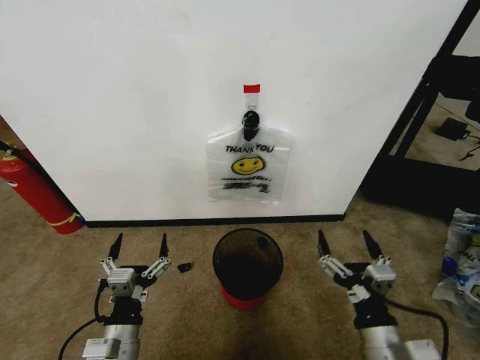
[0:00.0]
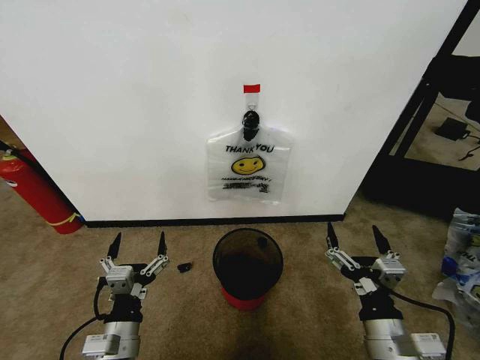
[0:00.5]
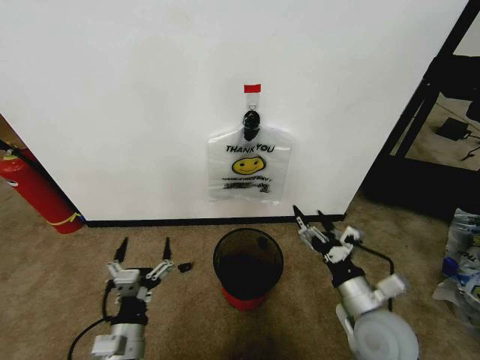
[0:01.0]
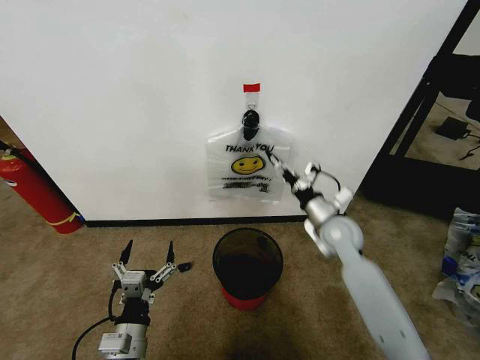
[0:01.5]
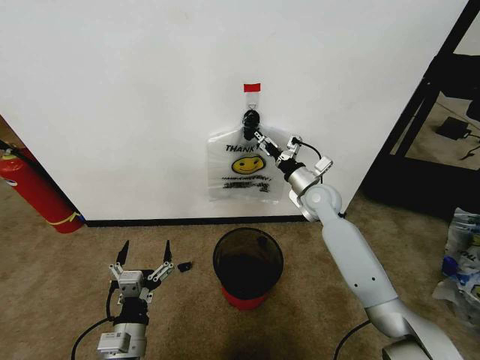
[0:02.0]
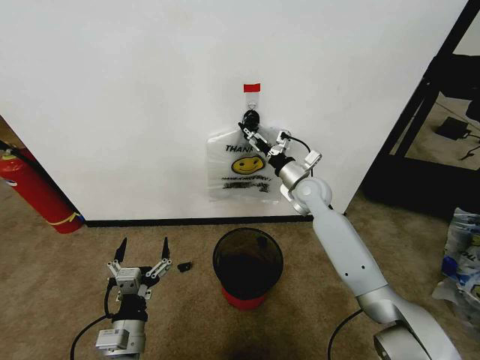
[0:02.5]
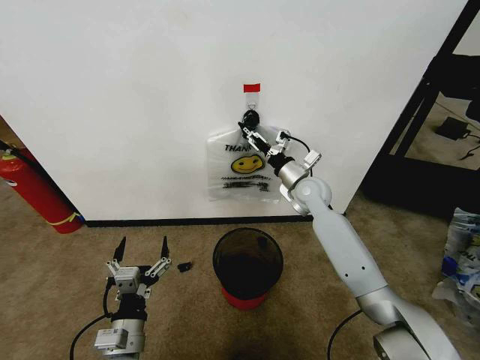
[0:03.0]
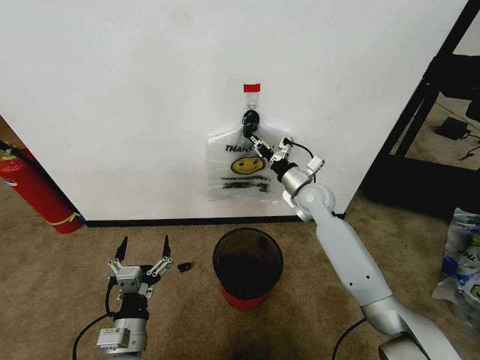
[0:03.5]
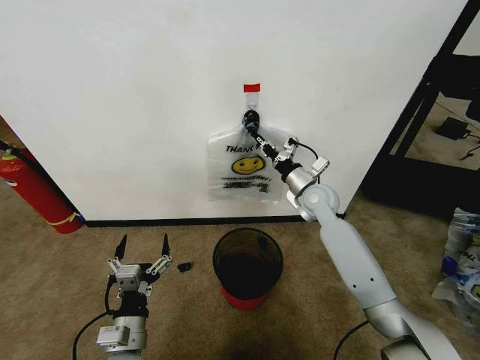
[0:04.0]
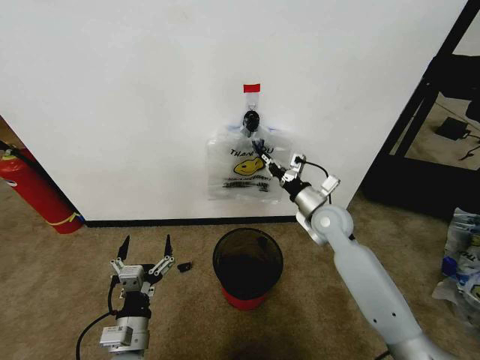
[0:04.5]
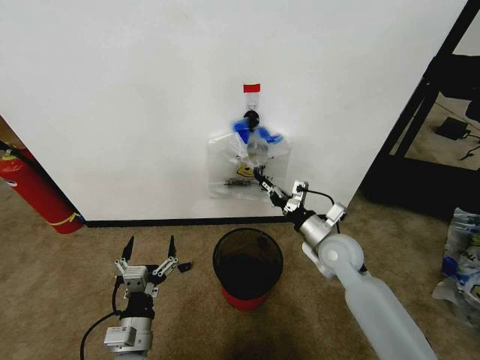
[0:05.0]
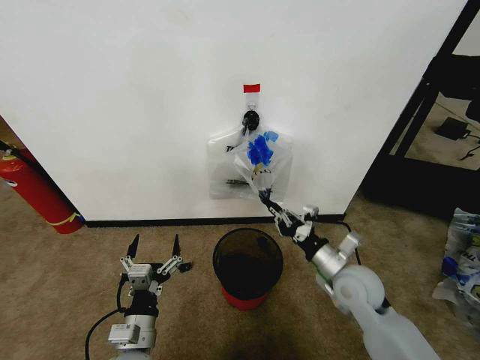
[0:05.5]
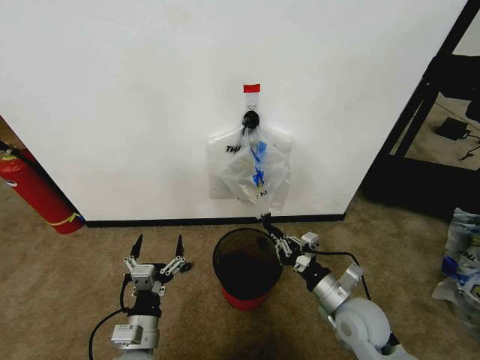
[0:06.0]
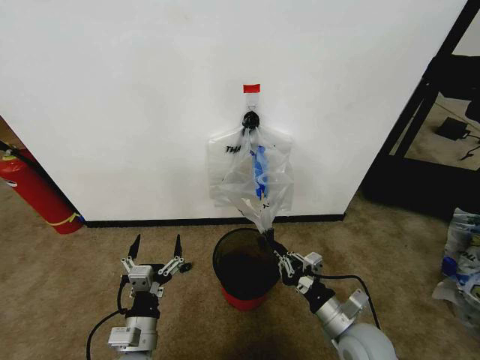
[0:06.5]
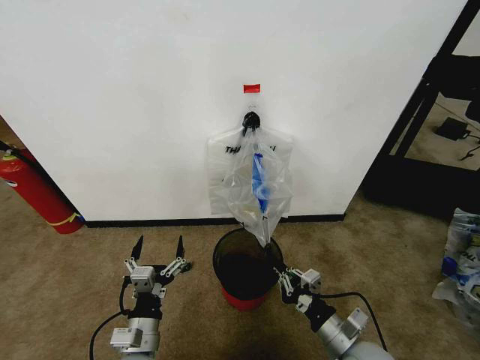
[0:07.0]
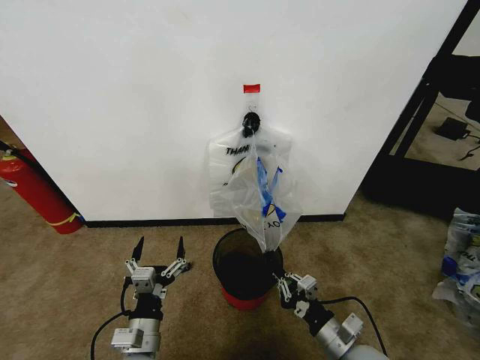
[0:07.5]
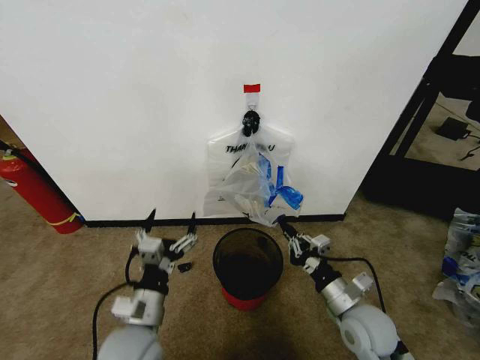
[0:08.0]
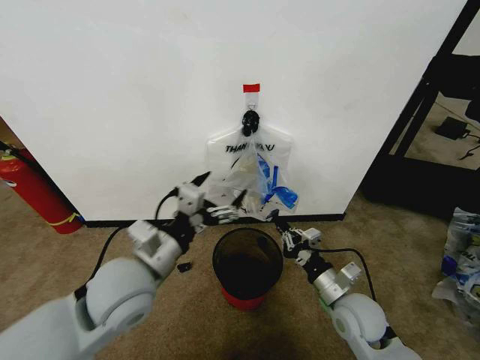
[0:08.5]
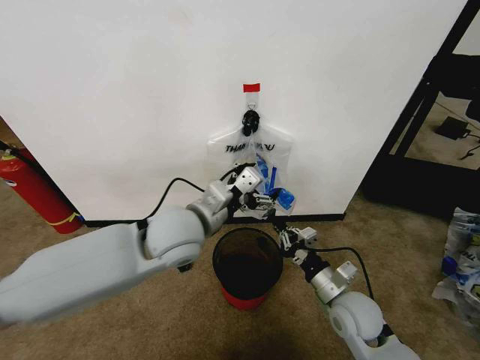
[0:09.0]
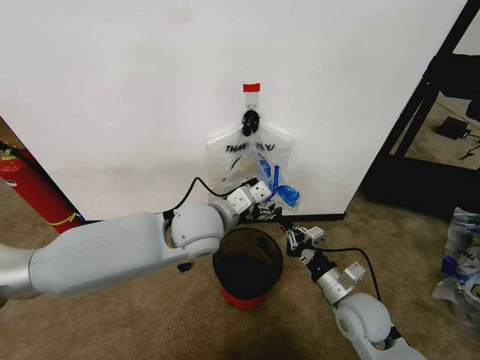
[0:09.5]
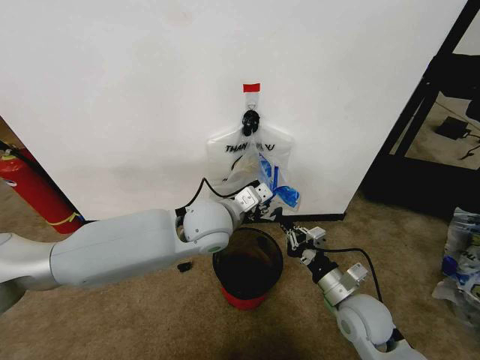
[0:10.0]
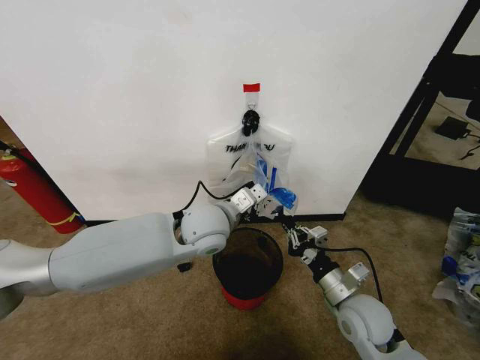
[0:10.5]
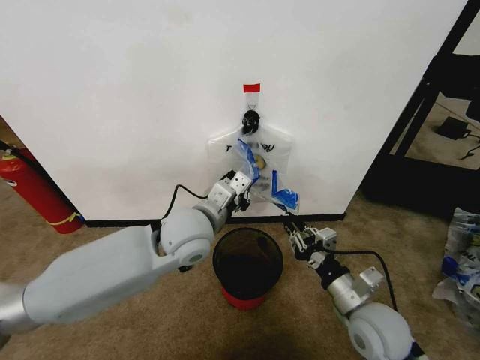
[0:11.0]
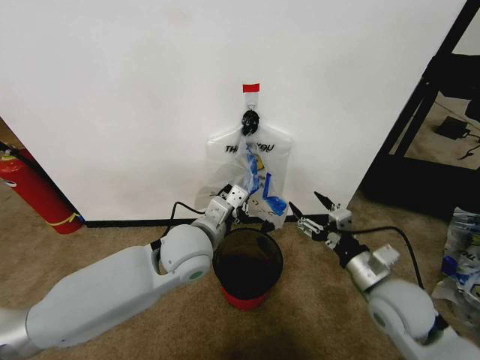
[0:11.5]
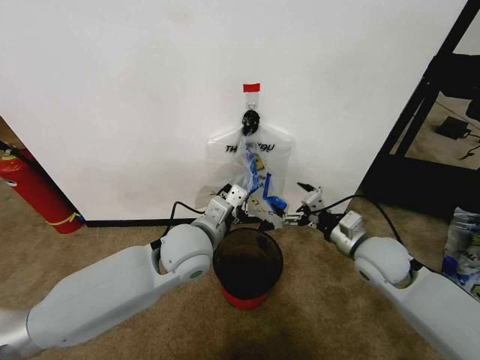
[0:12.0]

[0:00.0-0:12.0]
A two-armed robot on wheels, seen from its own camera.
Task of the whole recording: Pick up the garbage bag from the wall and place it over the trash bin.
0:02.0 to 0:04.0: The right gripper closes up.
0:04.0 to 0:06.0: The right gripper goes about 25 cm backward.
0:06.0 to 0:08.0: The left gripper shifts approximately 5 cm upward.
0:08.0 to 0:10.0: The left gripper goes about 25 cm forward, upward and to the right, and closes its fingers.
0:10.0 to 0:12.0: The right gripper goes about 10 cm forward and upward, and opens up; the left gripper shifts by roughly 5 cm, and closes.

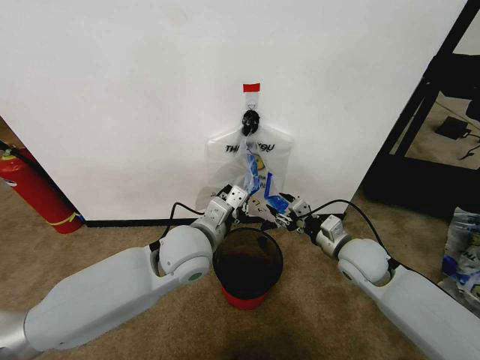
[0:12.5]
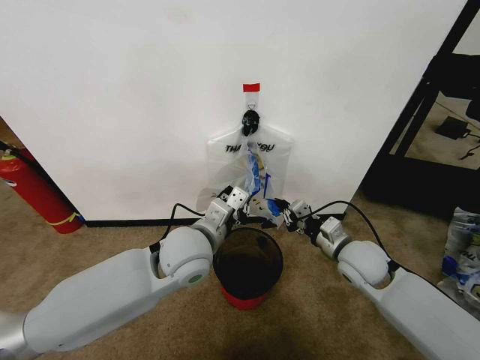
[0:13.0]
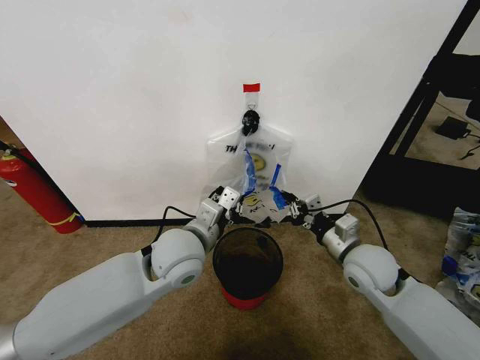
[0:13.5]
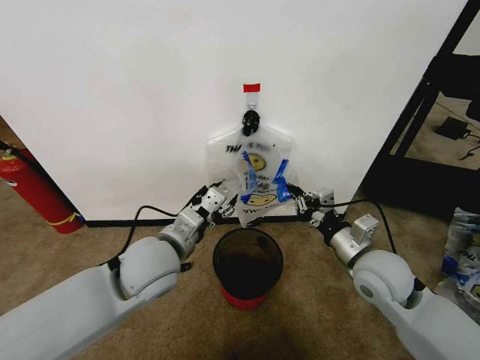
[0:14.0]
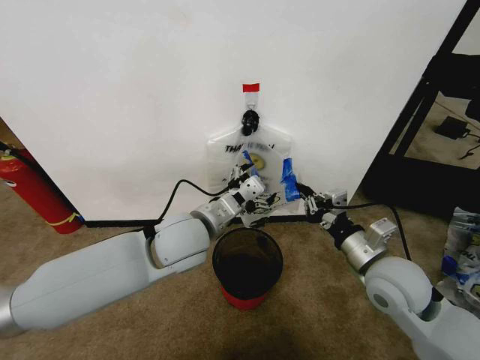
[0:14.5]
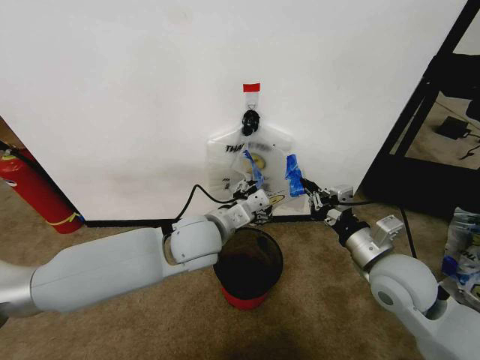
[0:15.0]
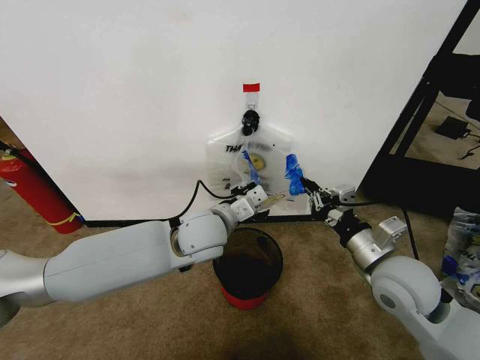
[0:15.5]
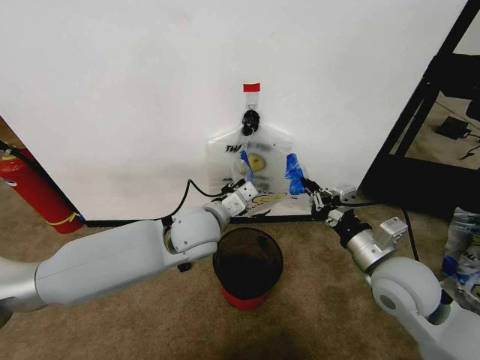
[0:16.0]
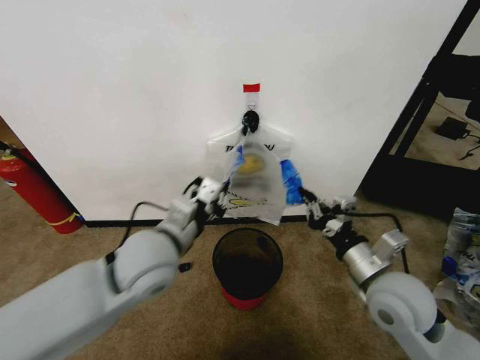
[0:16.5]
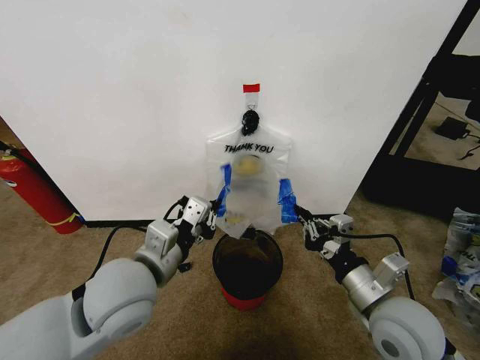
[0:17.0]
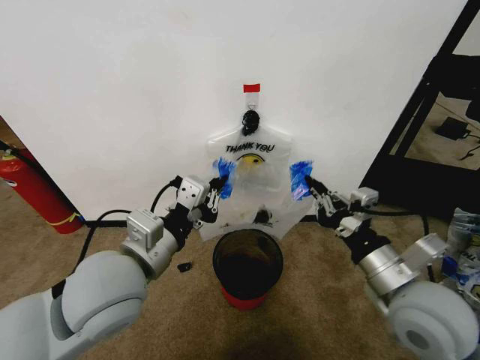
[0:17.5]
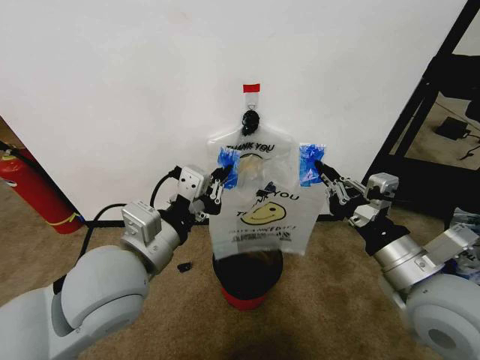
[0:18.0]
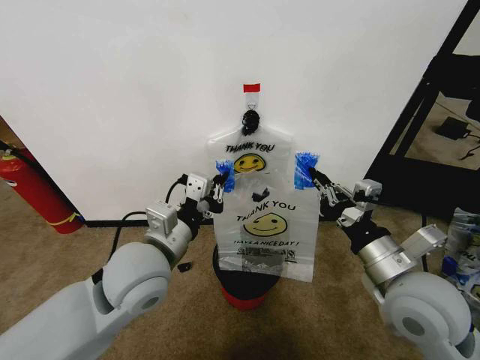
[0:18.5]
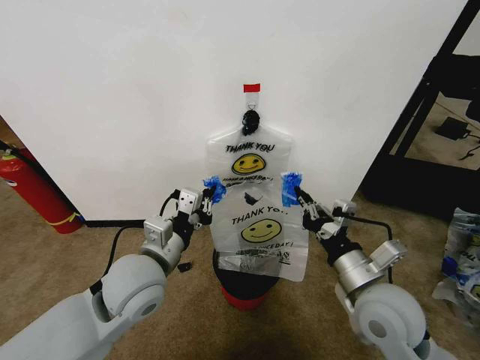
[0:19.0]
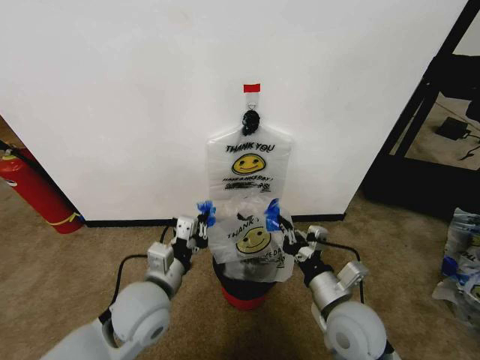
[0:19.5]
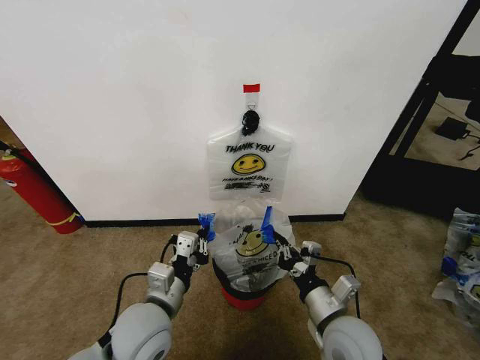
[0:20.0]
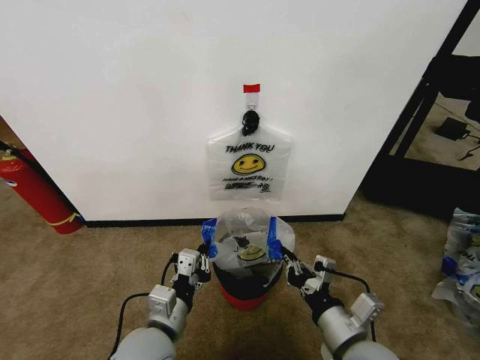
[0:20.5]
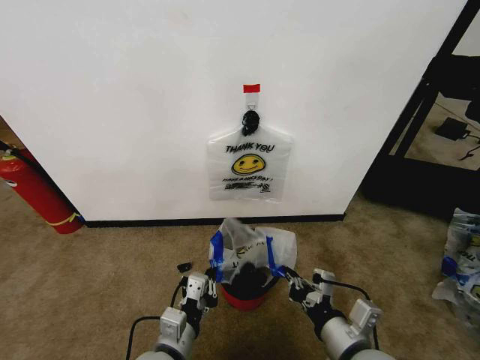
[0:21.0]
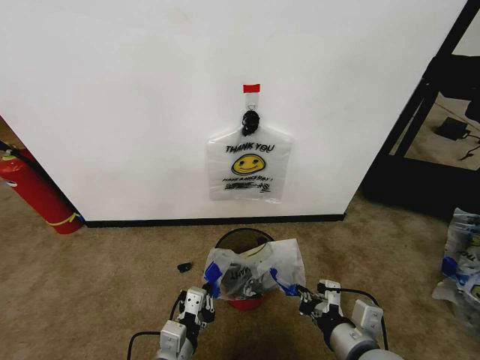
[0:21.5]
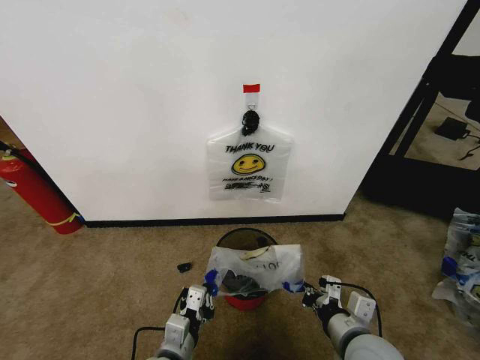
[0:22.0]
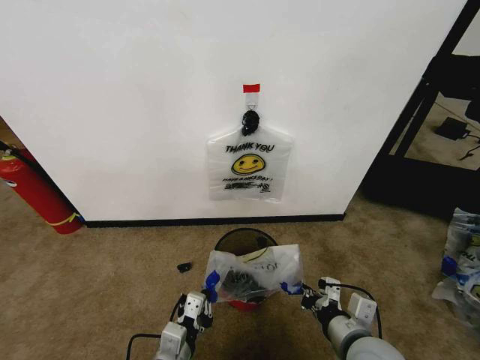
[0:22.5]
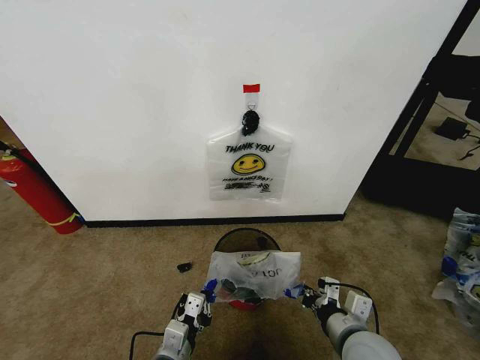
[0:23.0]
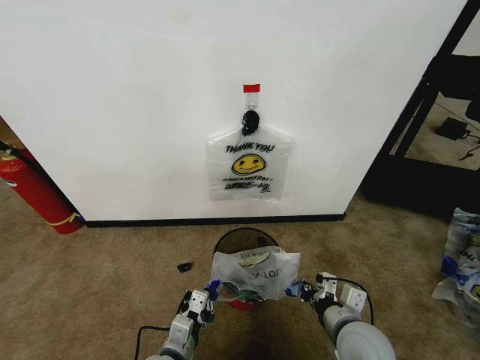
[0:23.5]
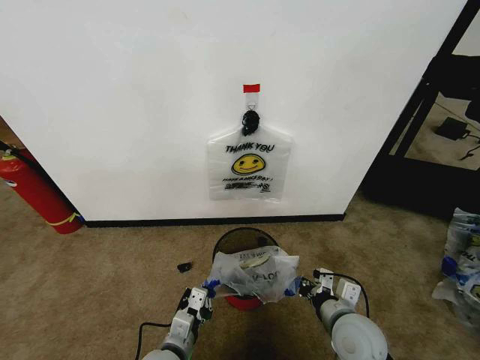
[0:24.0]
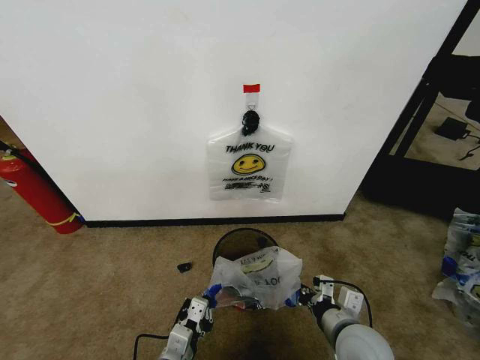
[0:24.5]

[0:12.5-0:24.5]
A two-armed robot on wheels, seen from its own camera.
Task of the whole recording: Pick up the garbage bag from the wall and place it over the trash bin.
0:12.5 to 0:14.5: The left gripper opens its fingers; the right gripper goes about 10 cm backward and upward, and closes up.
0:14.5 to 0:16.5: The left gripper ends up about 5 cm from where it was, and closes up.
0:18.5 to 0:20.5: The right gripper goes about 15 cm downward, backward and to the left, while the left gripper travels downward and backward by approximately 15 cm.
0:20.5 to 0:22.5: The left gripper moves downward and backward, approximately 10 cm.

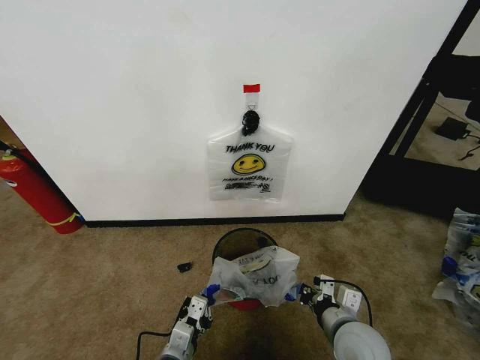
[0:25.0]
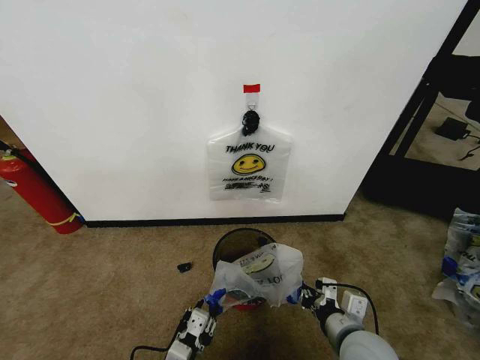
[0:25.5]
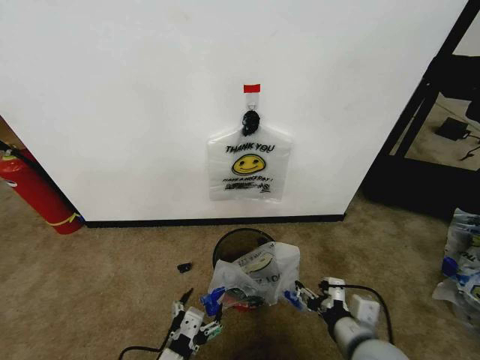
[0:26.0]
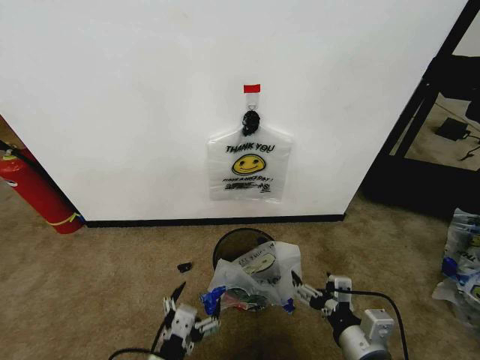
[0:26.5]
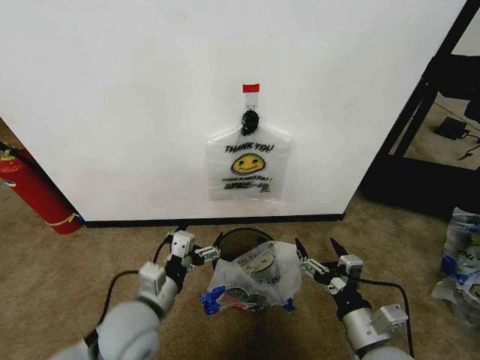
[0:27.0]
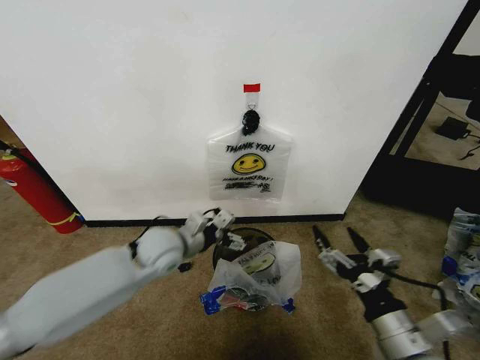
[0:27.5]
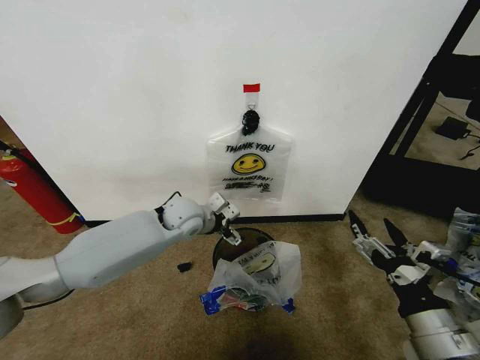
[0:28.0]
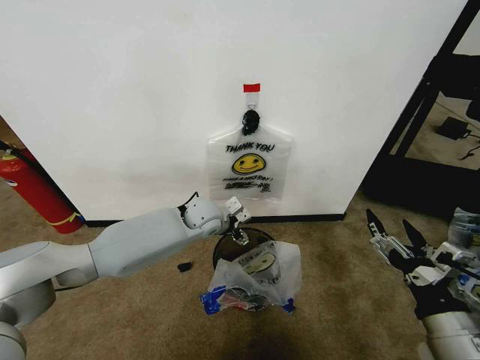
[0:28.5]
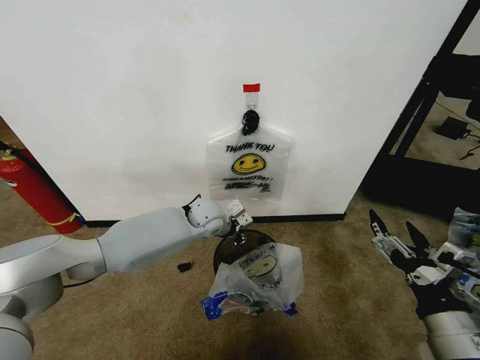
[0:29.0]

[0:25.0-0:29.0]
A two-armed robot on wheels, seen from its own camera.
Task of the whole recording: Pick up the garbage bag from the wall and place it over the trash bin.
0:25.0 to 0:27.0: The right gripper moves some 5 cm, and opens up. Meanwhile the left gripper is displaced upward and forward by roughly 15 cm, and opens its fingers.
0:27.0 to 0:29.0: The left gripper travels forward by about 25 cm, and closes up. Meanwhile the right gripper heads upward and to the right, covering some 10 cm.
